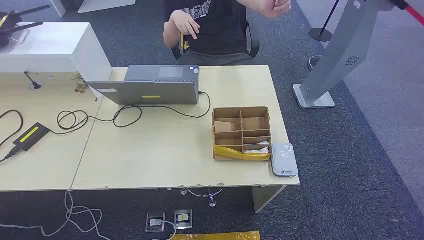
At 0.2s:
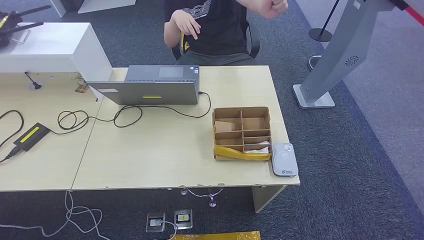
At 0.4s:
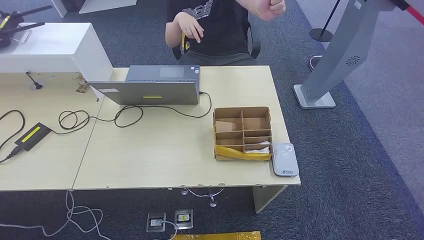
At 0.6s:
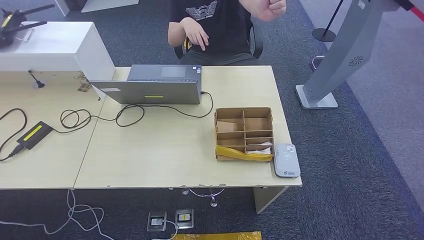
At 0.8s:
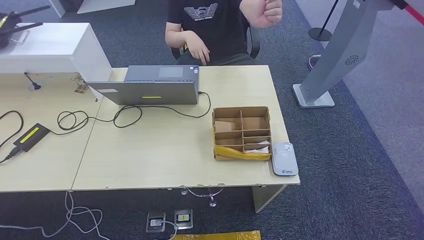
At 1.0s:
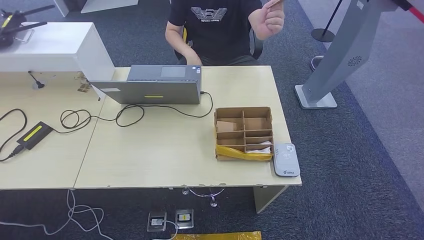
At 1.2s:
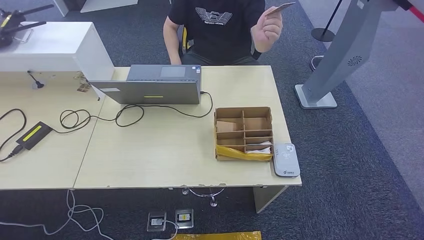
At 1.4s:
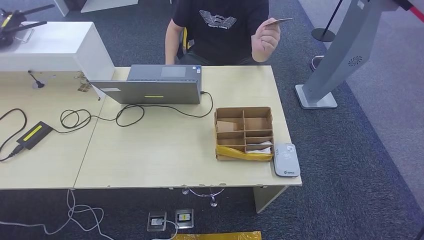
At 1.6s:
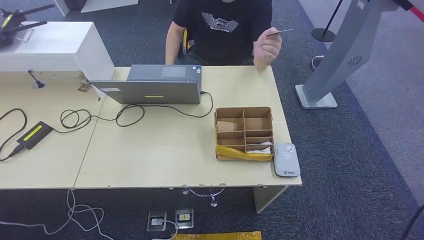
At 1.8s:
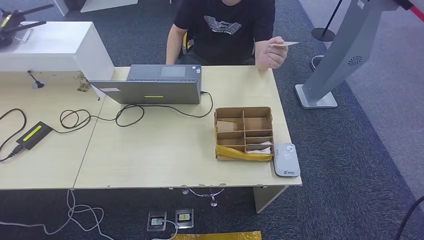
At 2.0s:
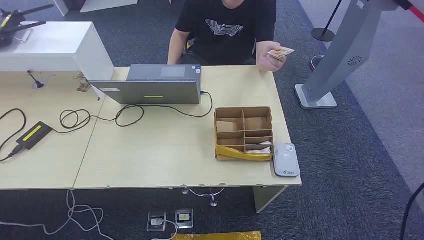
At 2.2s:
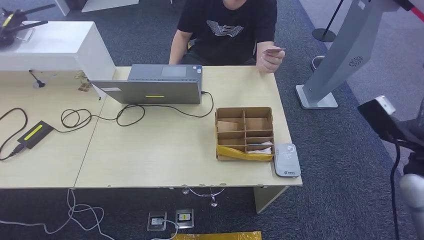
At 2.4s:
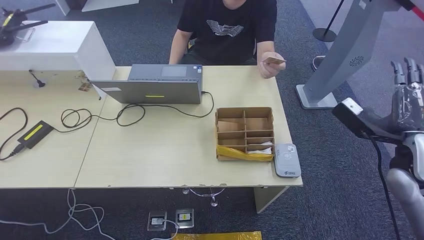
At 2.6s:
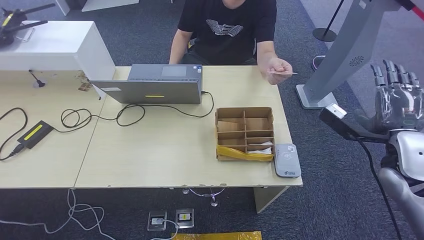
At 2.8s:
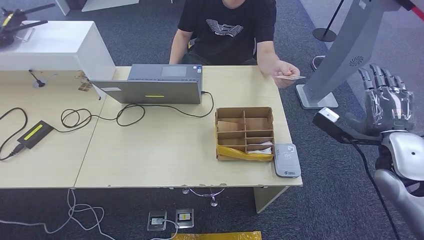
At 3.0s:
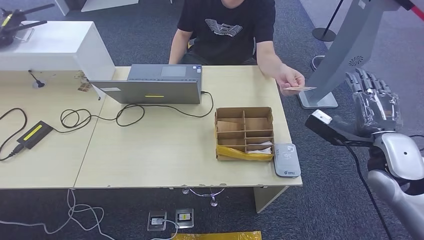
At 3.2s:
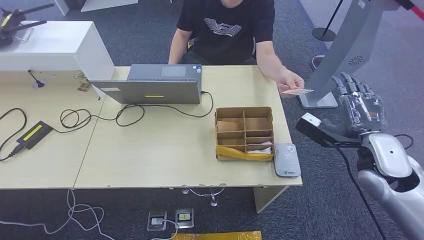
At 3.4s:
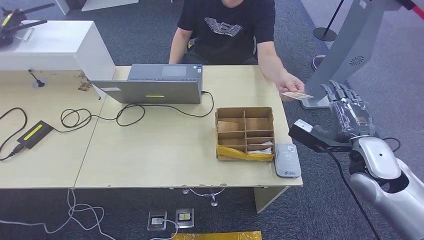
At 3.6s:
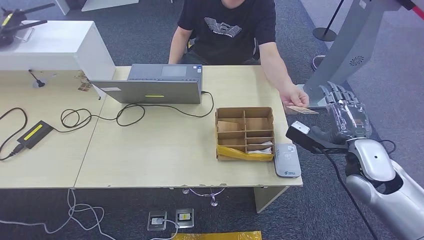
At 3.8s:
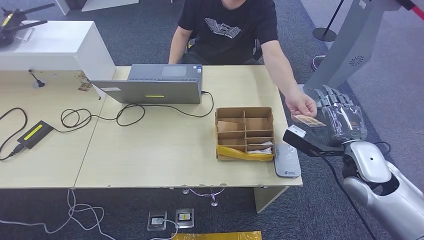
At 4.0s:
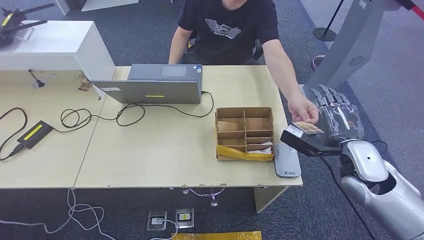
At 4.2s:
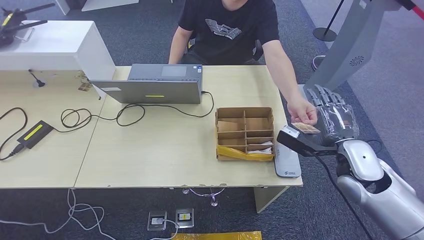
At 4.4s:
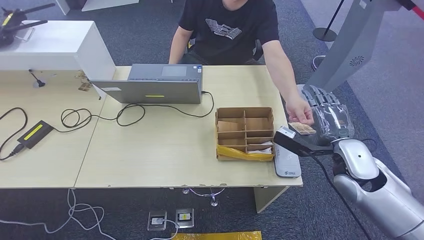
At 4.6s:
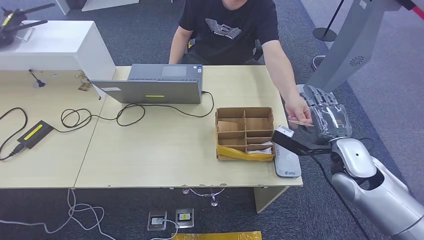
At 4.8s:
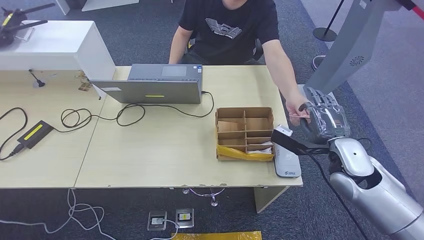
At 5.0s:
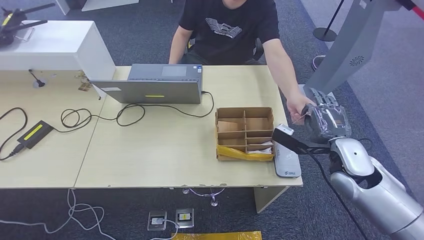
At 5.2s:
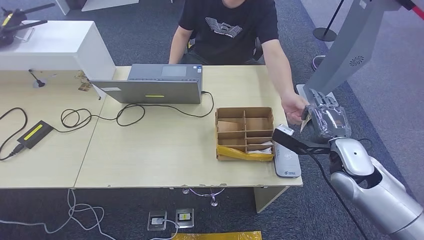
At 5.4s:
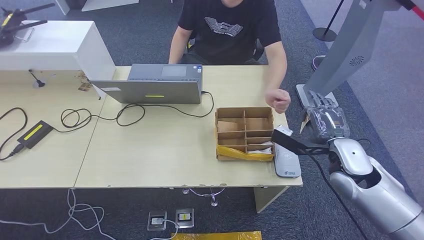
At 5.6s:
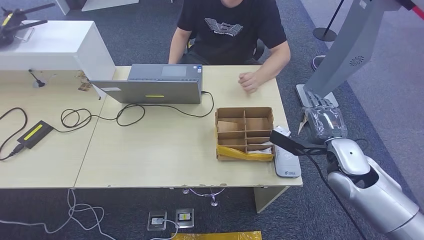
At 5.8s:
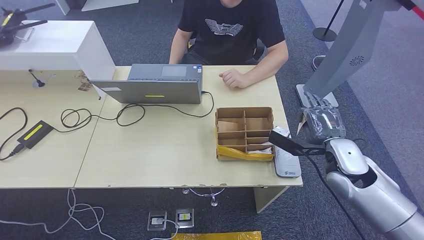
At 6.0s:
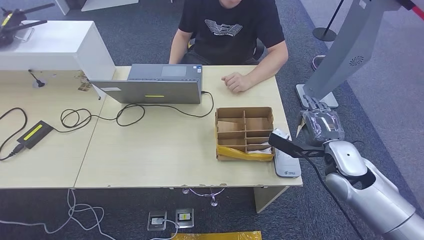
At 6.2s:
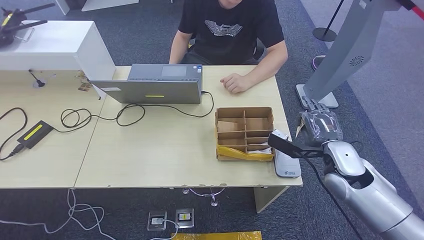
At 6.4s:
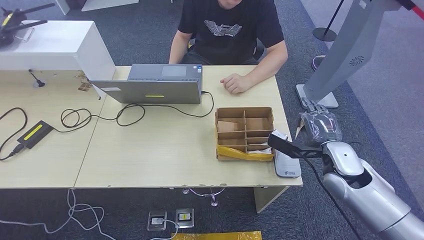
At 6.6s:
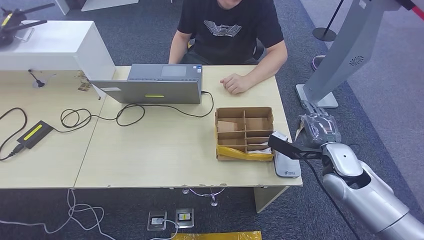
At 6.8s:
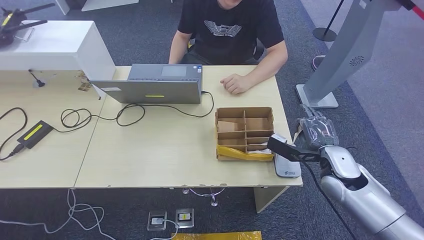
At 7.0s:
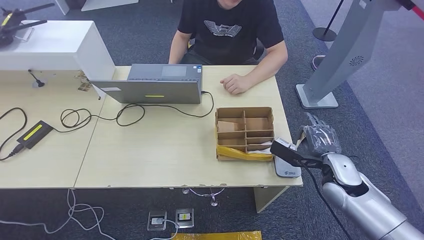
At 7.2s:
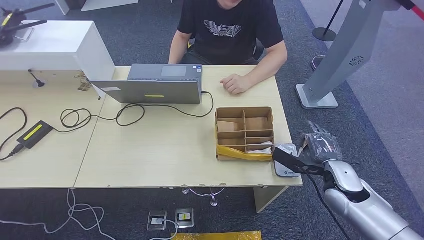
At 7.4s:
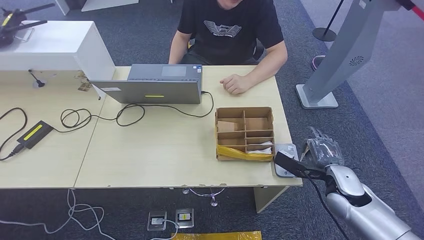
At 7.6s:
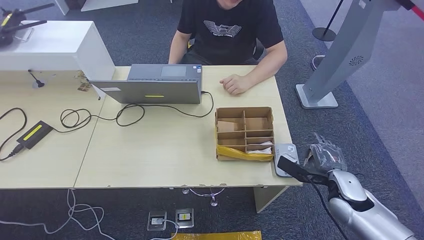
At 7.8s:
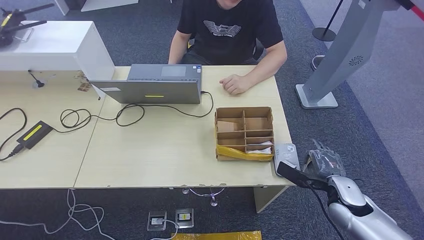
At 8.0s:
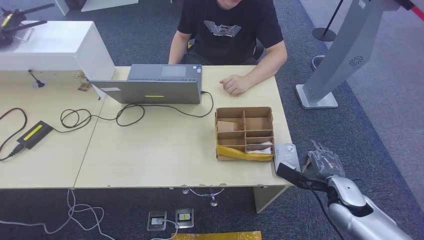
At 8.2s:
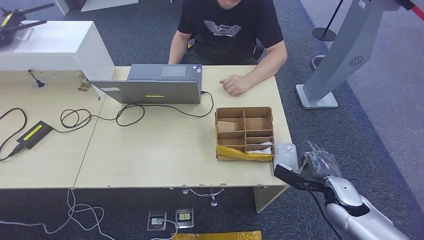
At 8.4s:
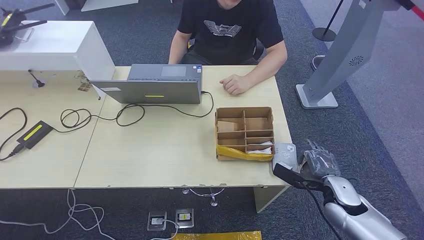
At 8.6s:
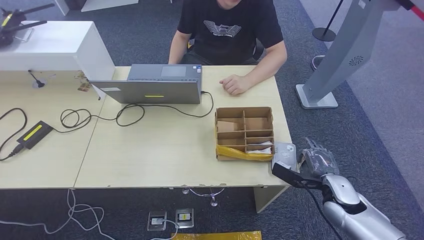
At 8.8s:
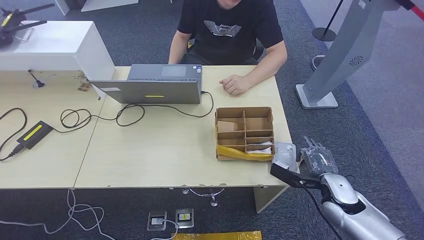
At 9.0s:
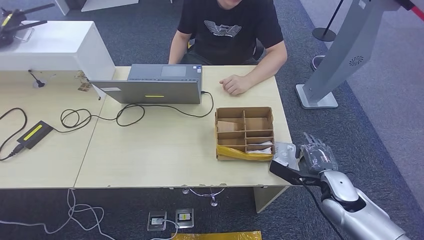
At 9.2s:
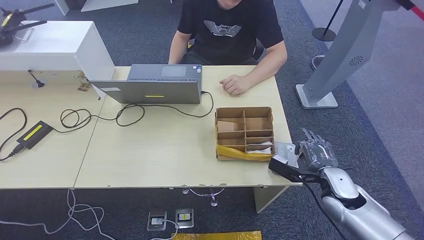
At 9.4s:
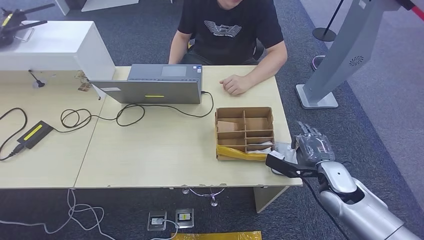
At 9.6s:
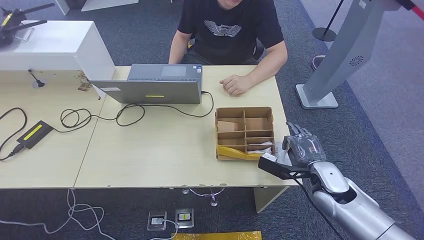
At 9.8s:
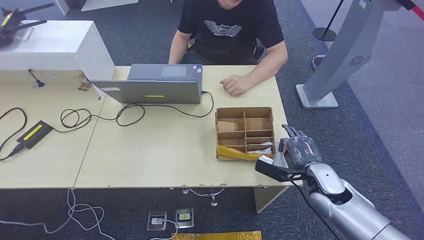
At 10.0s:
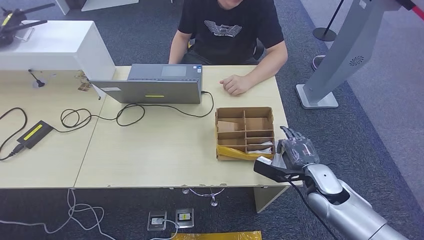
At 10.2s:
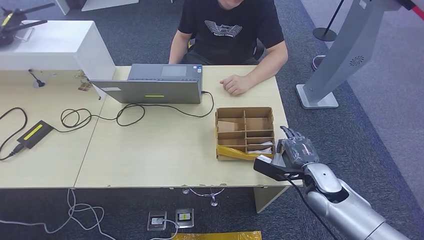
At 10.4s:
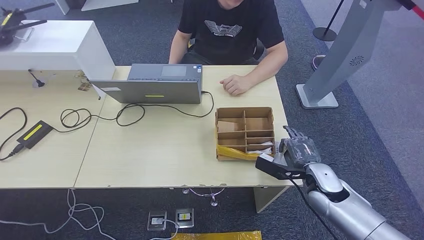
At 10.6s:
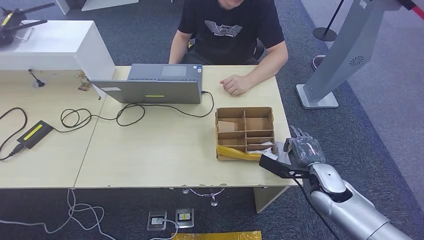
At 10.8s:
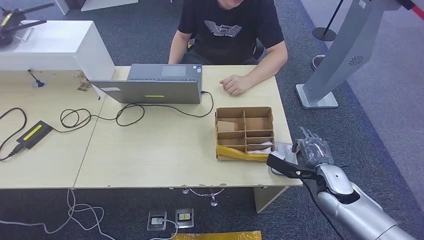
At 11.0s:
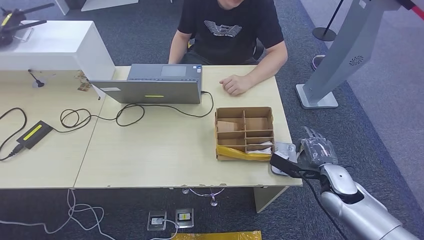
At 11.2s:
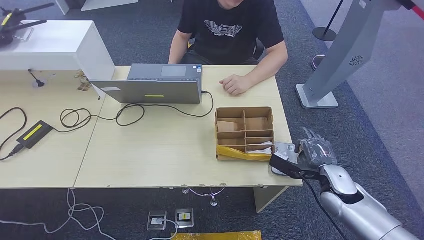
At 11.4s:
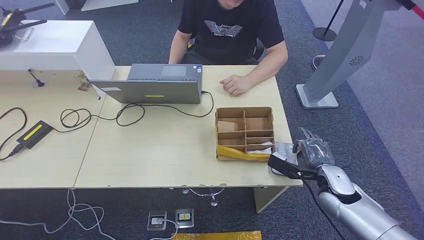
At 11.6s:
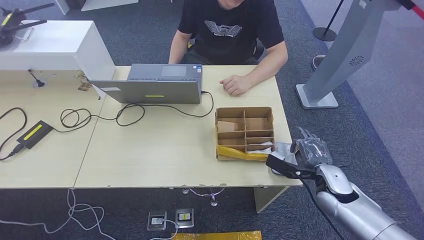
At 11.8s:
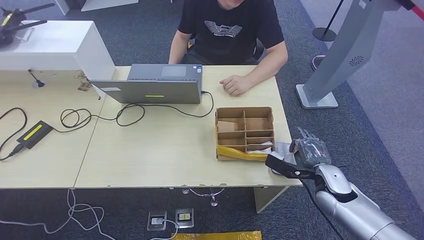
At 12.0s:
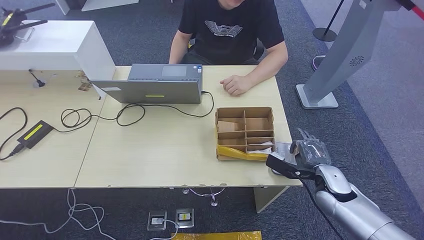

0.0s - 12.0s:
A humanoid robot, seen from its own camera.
Step, 0.0s - 5.2s: Take the ID card from the person's hand.
Step, 6.4s - 9.6s: Place the ID card on the card reader.
1.6s - 3.0s: The right hand goes roughly 20 cm to the left and forward.
3.0s - 4.4s: The right hand moves roughly 5 cm.
4.4s - 6.0s: The hands stay close to where they were, moving slightly.
6.0s - 7.6s: The right hand is displaced downward by approximately 10 cm.
7.6s - 9.0s: The hands make only small movements.
10.4s - 12.0s: The hands make only small movements.

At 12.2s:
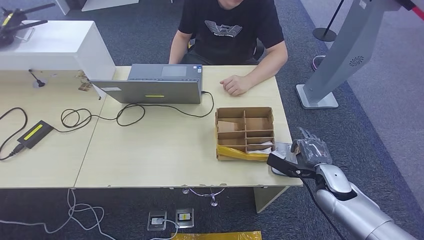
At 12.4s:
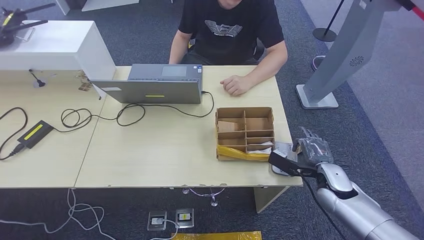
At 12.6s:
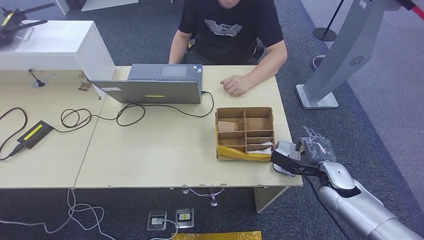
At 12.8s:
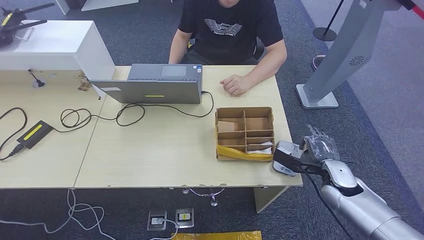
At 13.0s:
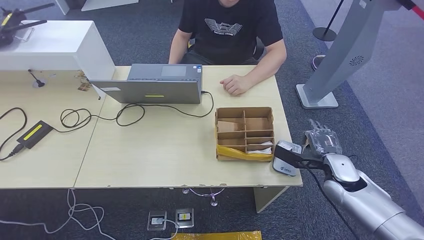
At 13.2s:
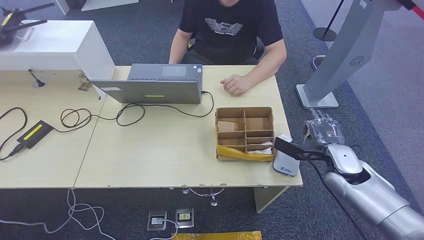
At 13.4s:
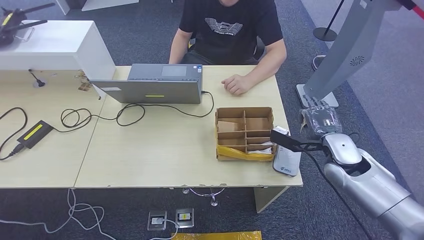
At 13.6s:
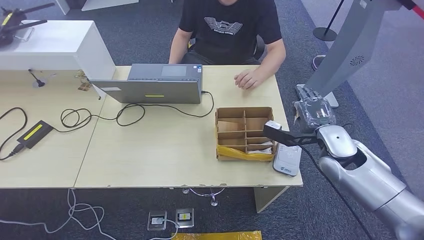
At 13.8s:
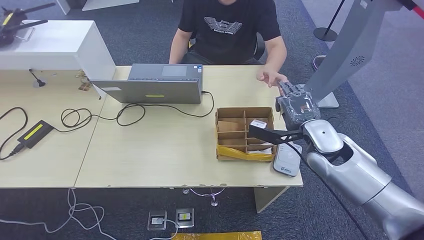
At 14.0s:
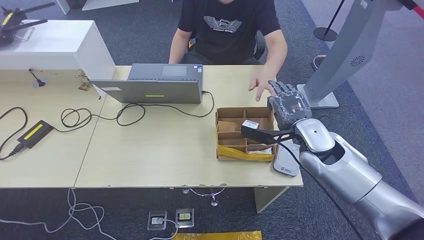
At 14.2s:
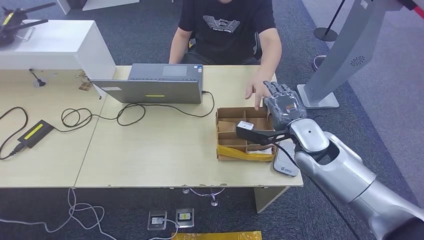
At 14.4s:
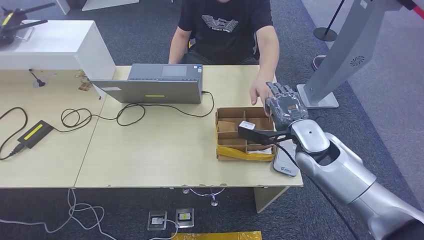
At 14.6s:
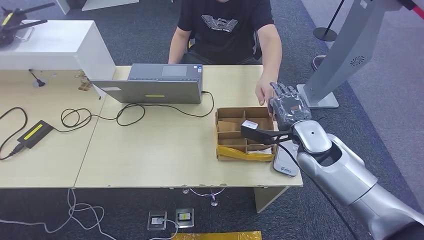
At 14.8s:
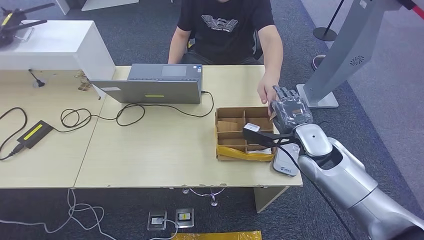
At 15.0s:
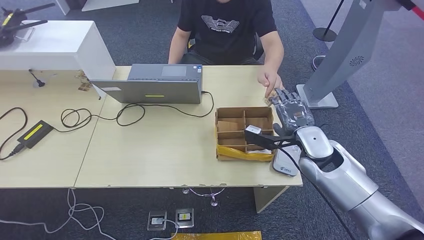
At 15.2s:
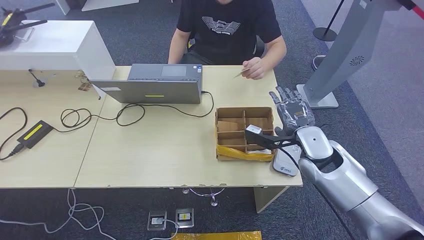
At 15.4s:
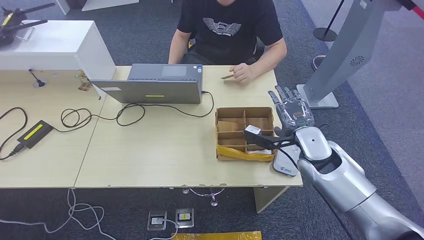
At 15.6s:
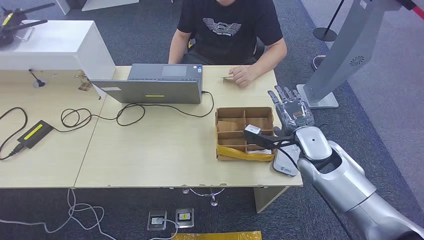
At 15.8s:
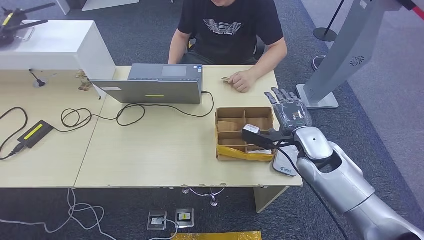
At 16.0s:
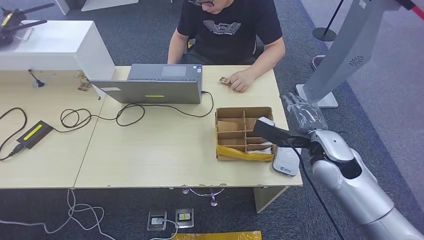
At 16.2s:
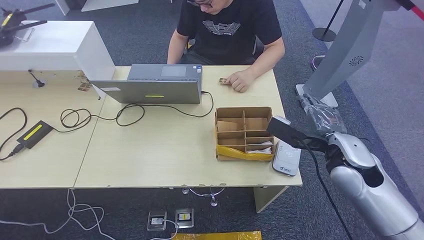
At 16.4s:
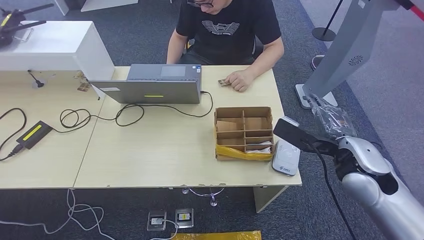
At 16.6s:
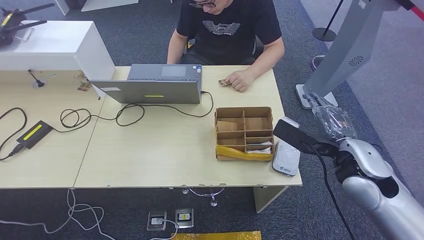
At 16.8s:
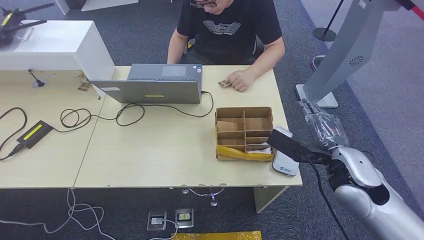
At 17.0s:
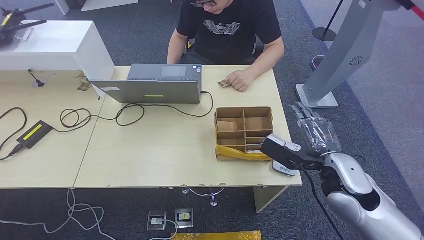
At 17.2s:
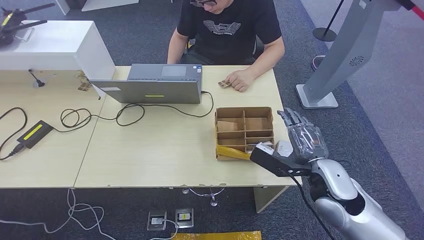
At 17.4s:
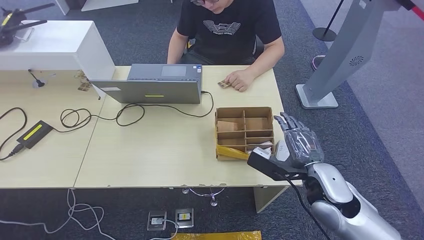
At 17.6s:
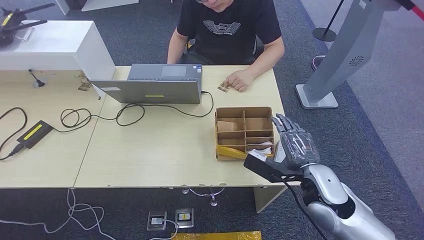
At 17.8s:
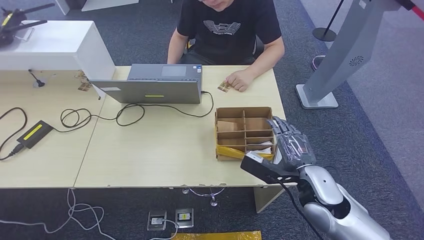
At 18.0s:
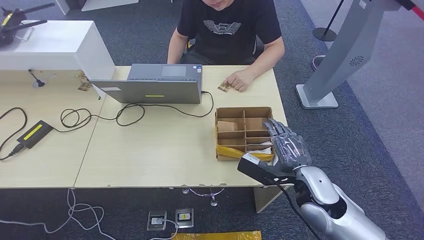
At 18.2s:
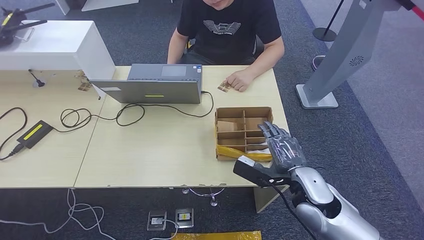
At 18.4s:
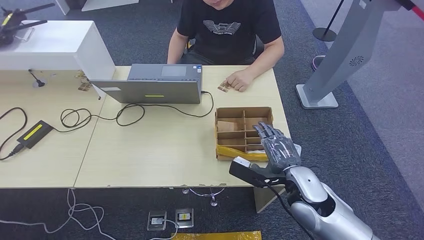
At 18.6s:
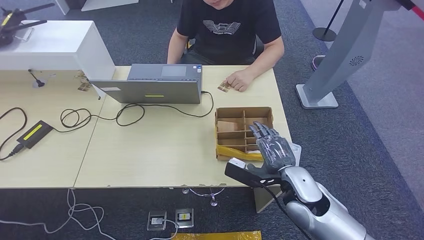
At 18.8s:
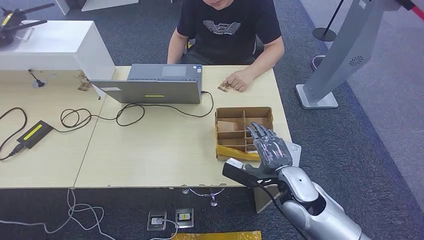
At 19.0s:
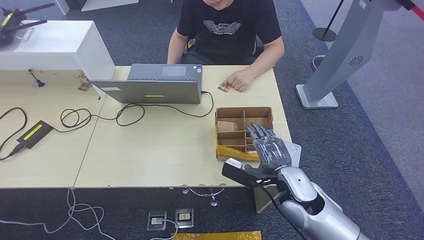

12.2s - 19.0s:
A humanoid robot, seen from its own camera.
Step, 12.2s - 16.2s: Hand the ID card to the person.
12.2s - 13.6s: The right hand travels upward by some 10 cm.
15.0s - 16.2s: The right hand changes place by about 10 cm.
16.2s - 17.6s: The right hand moves downward, approximately 5 cm.
17.6s - 19.0s: The right hand moves about 5 cm.
